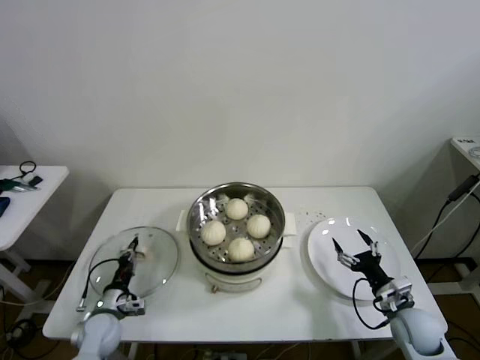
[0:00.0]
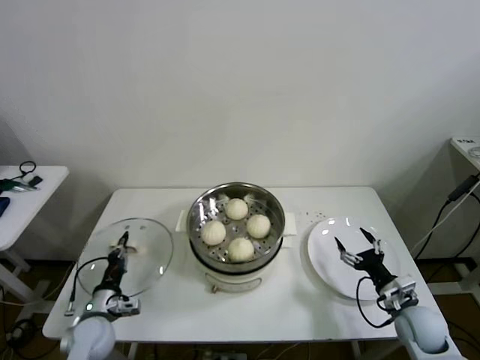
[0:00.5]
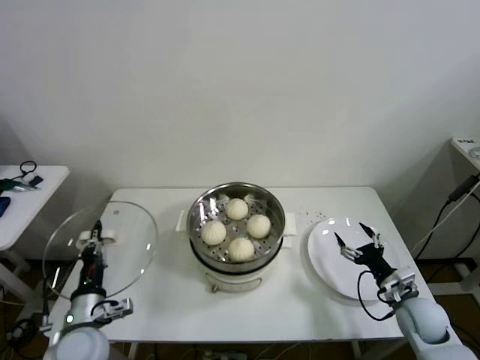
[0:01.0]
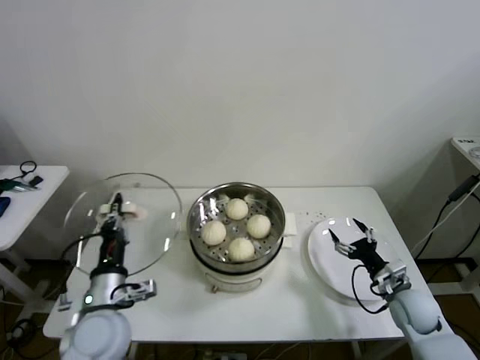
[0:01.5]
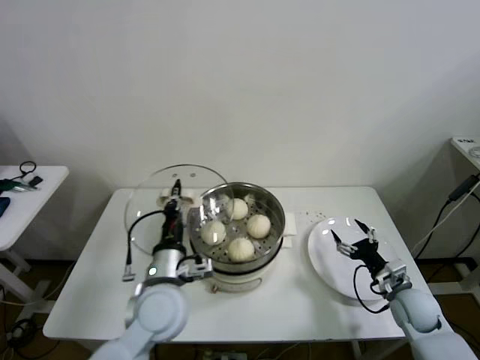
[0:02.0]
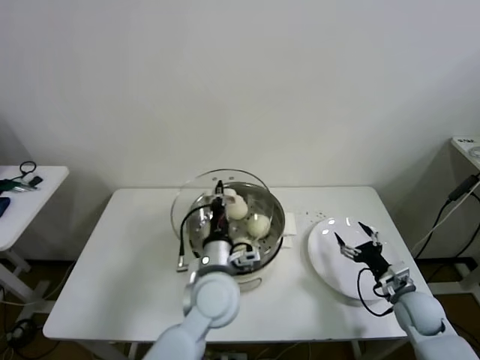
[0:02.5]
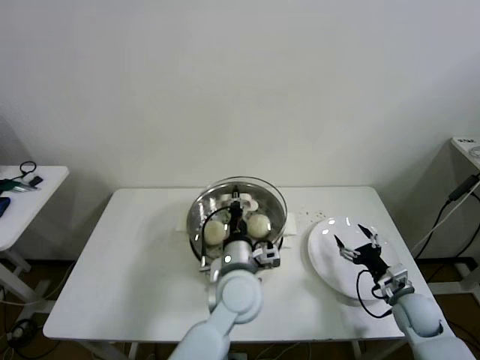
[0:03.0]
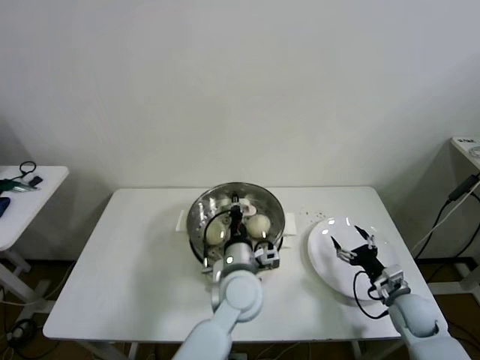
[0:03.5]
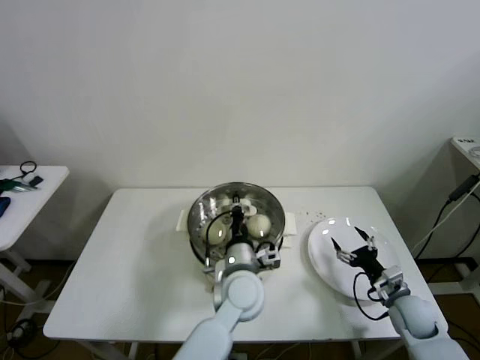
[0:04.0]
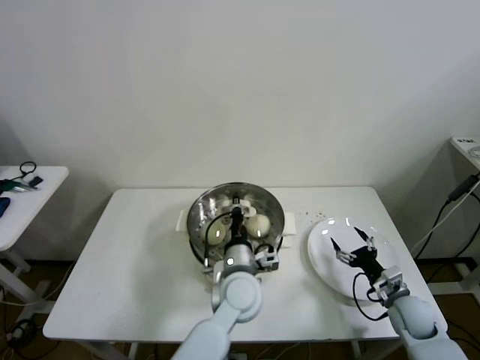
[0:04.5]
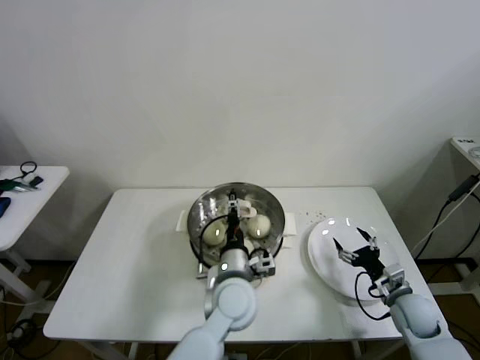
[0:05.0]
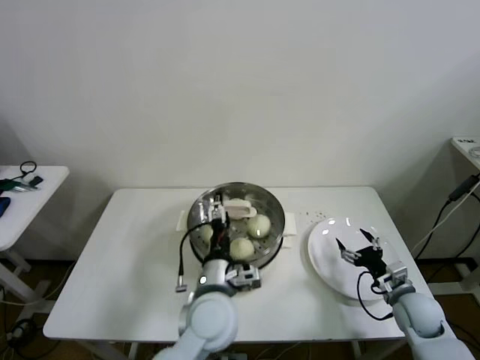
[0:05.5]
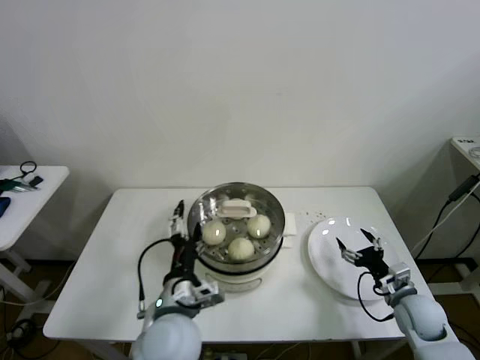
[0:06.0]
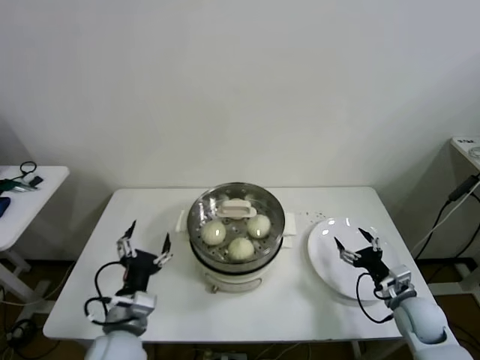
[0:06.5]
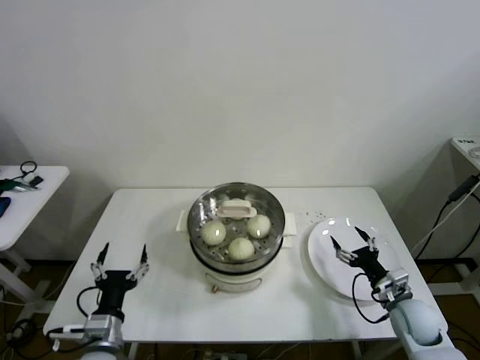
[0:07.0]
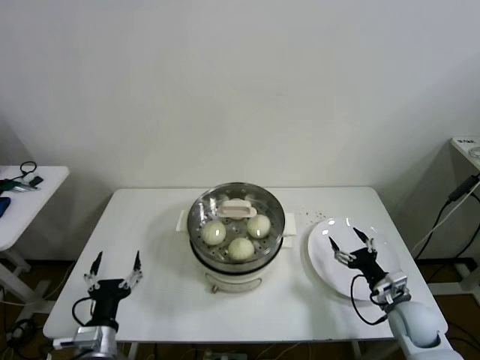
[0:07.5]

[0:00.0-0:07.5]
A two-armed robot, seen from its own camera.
Step, 0:00.5 to 0:04.5: Place the pot lid on the steamer with left gripper.
0:00.0 to 0:02.0: The left gripper is displaced upward and to the right by roughly 30 cm.
0:02.0 to 0:04.0: The left gripper heads to the right, covering about 15 cm.
0:04.0 to 0:05.5: The left gripper moves roughly 5 cm, and opens.
0:05.5 to 0:07.5: The left gripper travels to the left and backward by roughly 25 cm.

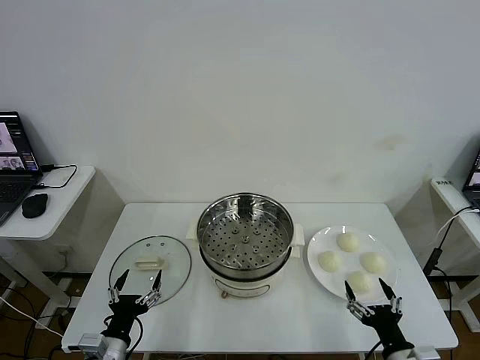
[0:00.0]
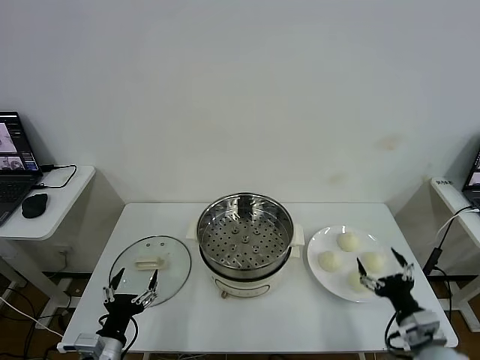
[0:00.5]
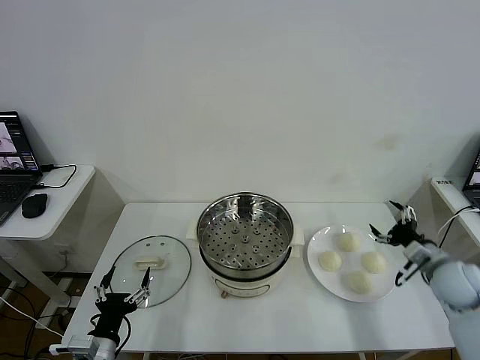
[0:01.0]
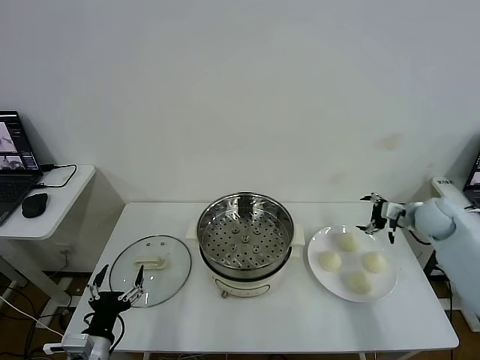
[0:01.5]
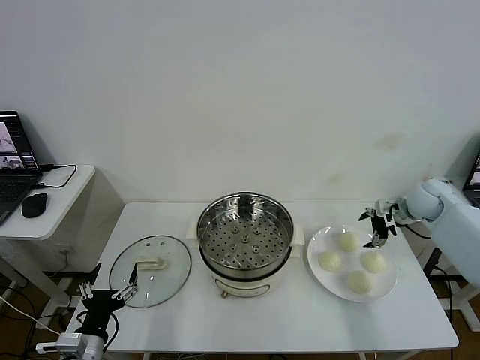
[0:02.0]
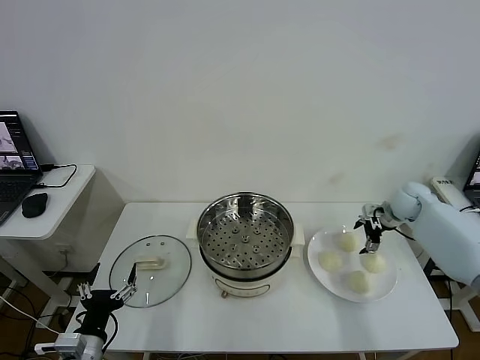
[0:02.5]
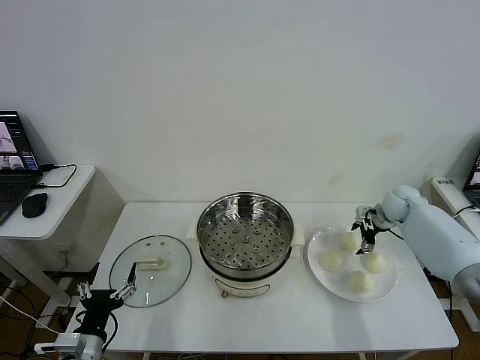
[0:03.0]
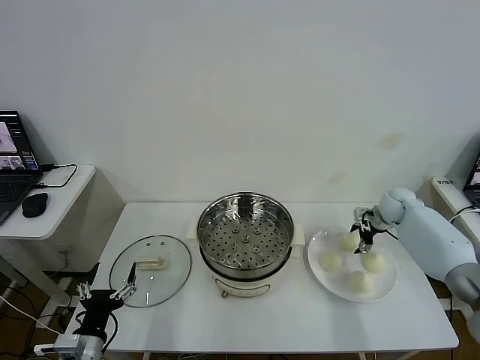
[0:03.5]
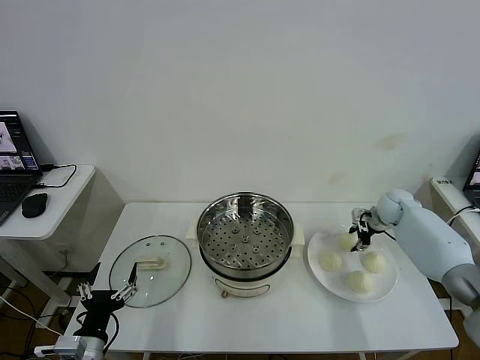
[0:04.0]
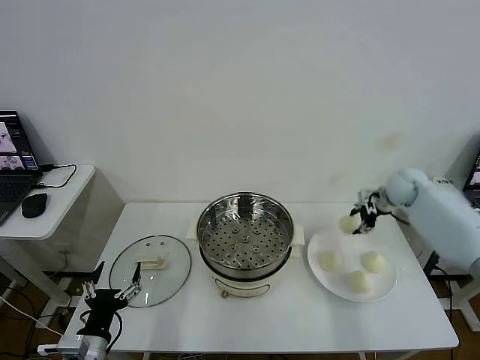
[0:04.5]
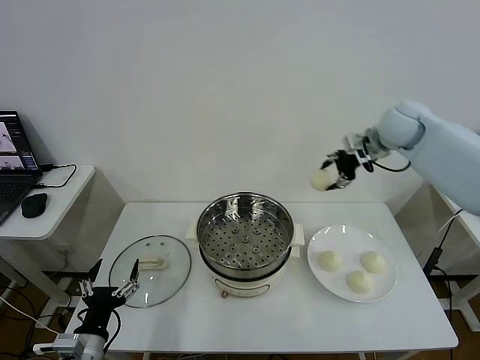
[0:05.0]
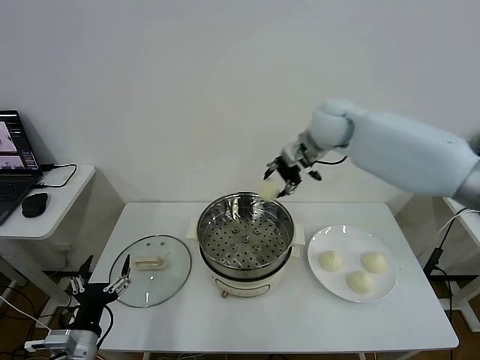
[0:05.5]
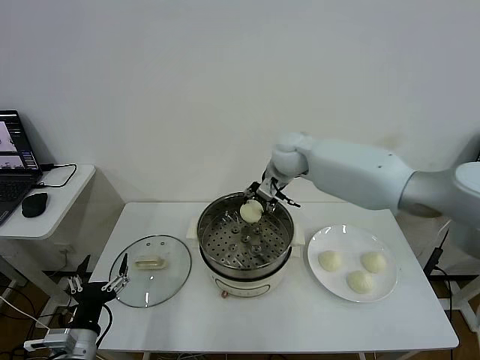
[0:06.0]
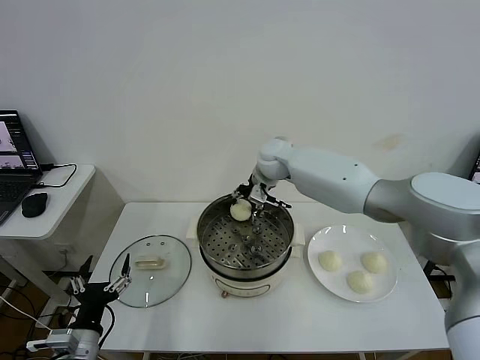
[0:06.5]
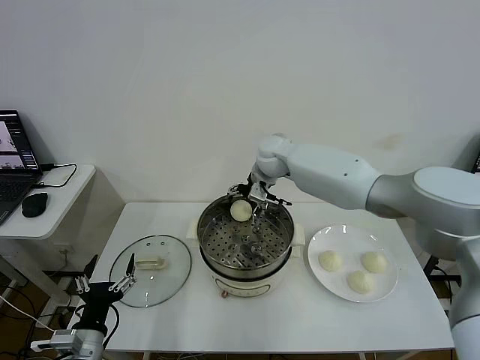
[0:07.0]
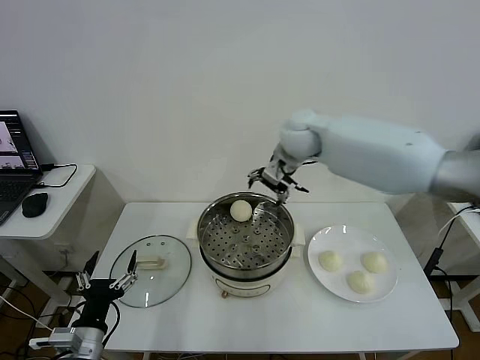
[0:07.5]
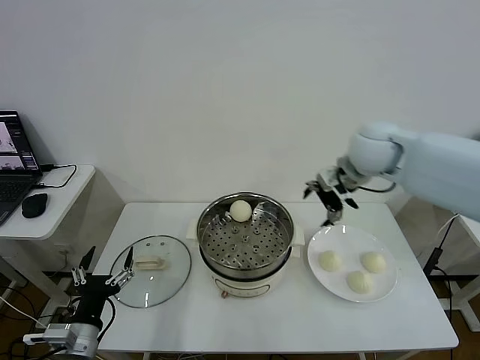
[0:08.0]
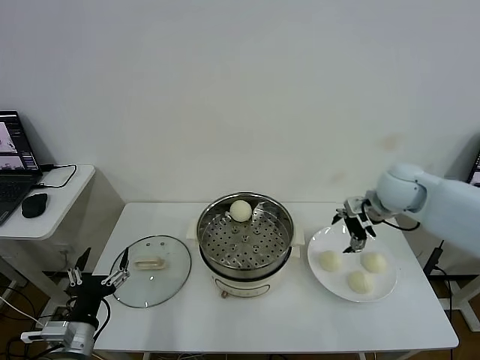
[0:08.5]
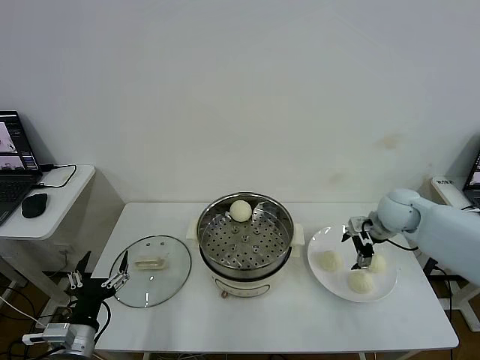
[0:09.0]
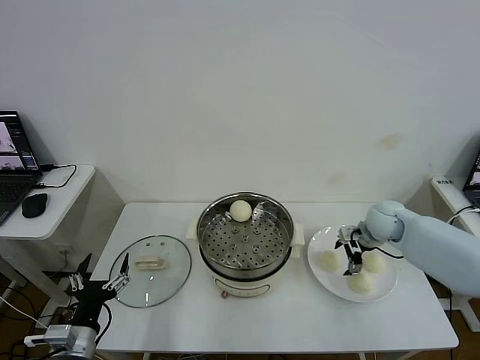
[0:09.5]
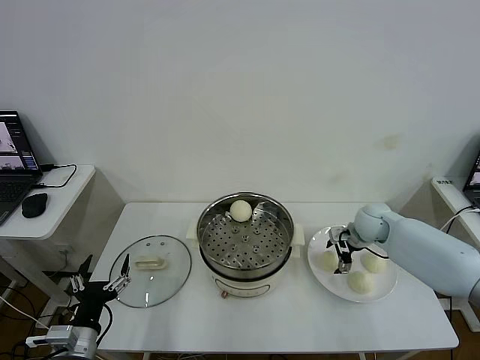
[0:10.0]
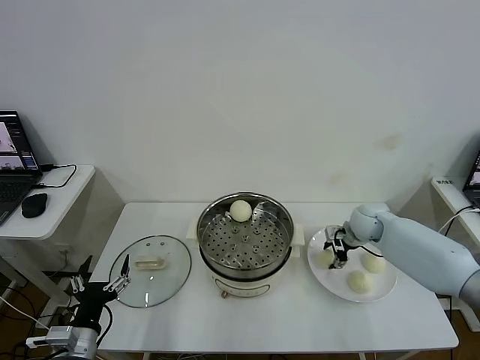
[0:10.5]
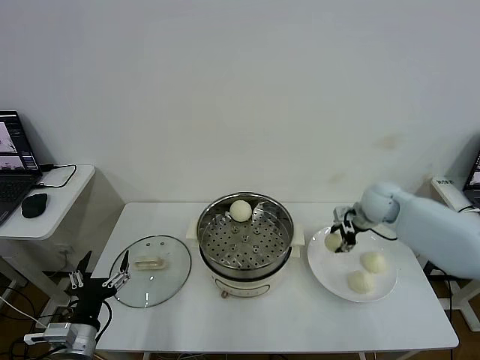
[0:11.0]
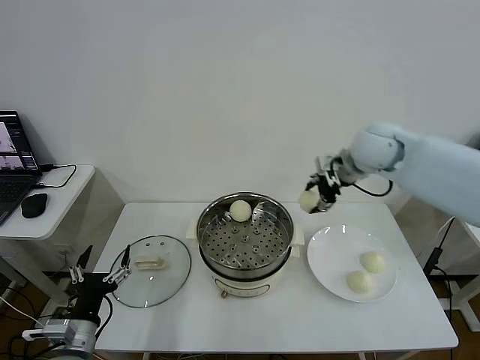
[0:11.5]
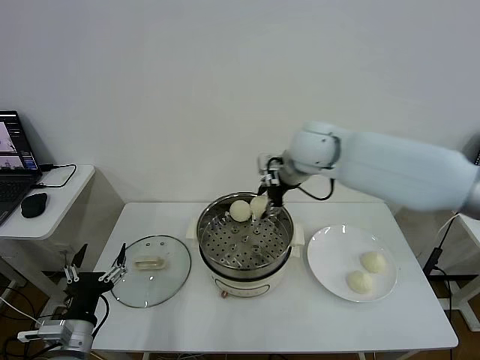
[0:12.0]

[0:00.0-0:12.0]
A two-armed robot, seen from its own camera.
Step, 0:00.0 to 0:04.0: Grasp the baozi in the plate with right gripper.
Step, 0:04.5 to 0:07.0: Place the baozi on the steamer with right gripper.
Step, 0:07.5 to 0:10.5: Grasp the baozi in the plate with right gripper.
0:02.0 to 0:04.0: The right gripper goes roughly 5 cm downward, and closes.
0:04.0 to 0:06.0: The right gripper moves to the left and upward, roughly 35 cm.
0:06.0 to 0:08.0: The right gripper is displaced to the right, backward and upward by about 20 cm, and opens.
0:08.0 to 0:10.0: The right gripper travels downward by some 20 cm.
0:10.0 to 0:12.0: The right gripper is displaced upward and to the left by some 30 cm, and closes its fingers.

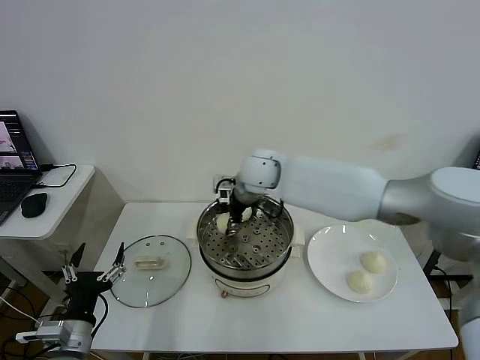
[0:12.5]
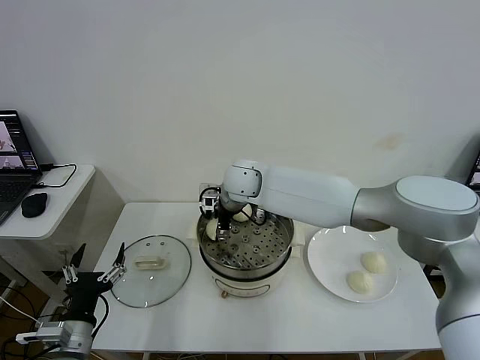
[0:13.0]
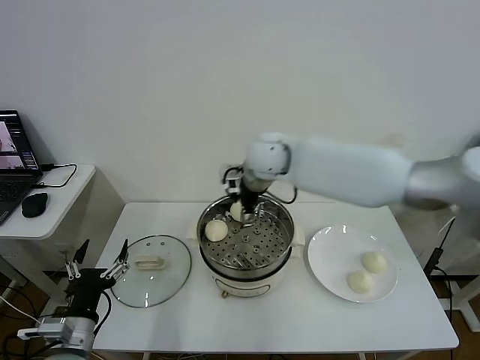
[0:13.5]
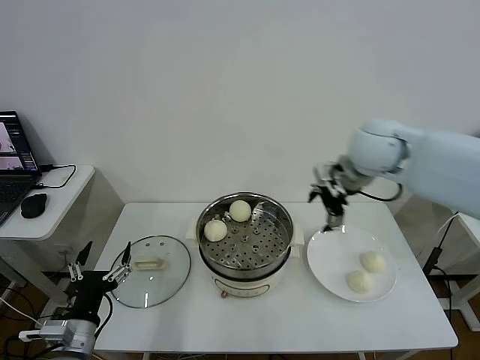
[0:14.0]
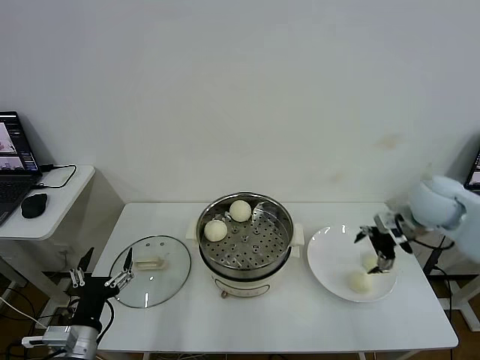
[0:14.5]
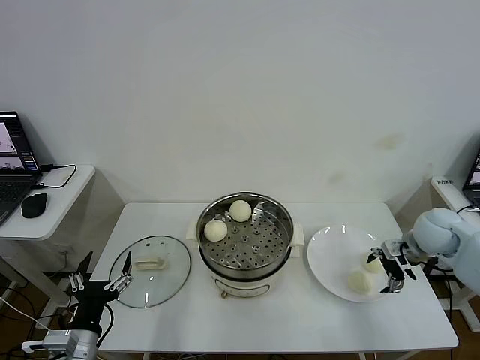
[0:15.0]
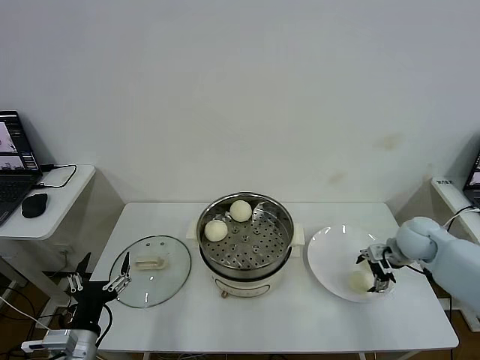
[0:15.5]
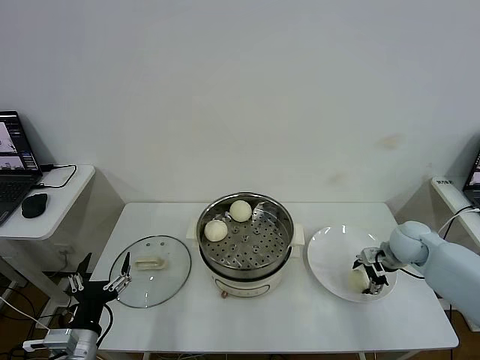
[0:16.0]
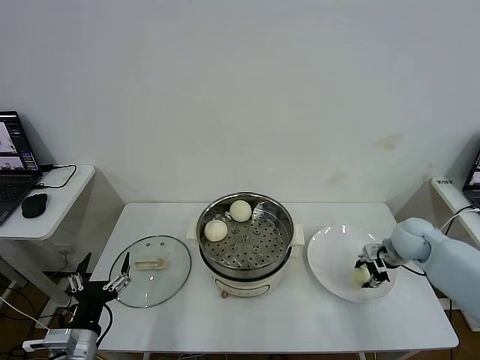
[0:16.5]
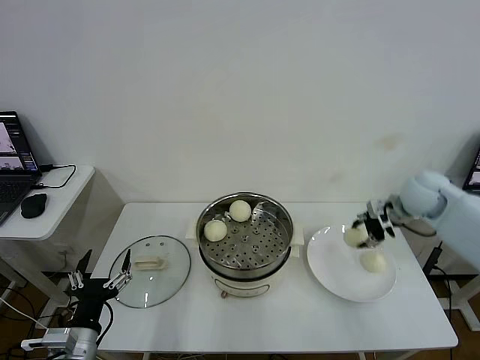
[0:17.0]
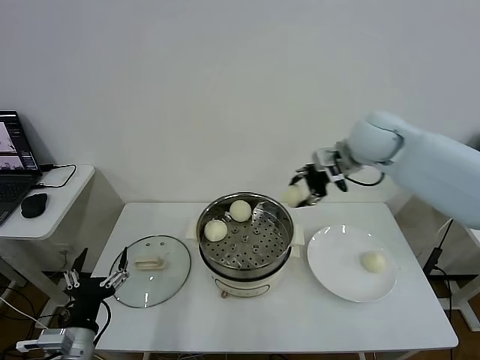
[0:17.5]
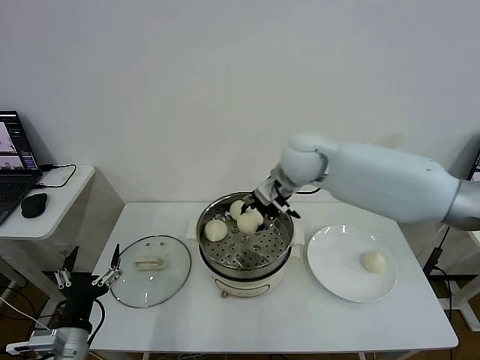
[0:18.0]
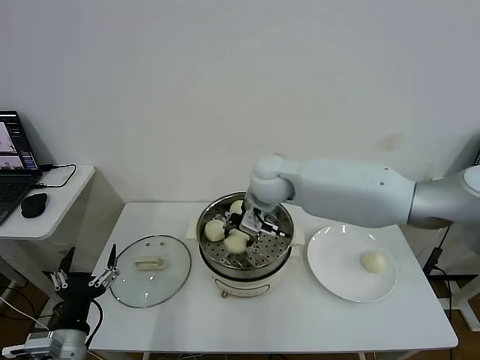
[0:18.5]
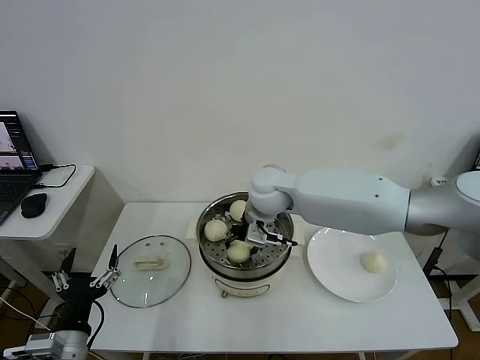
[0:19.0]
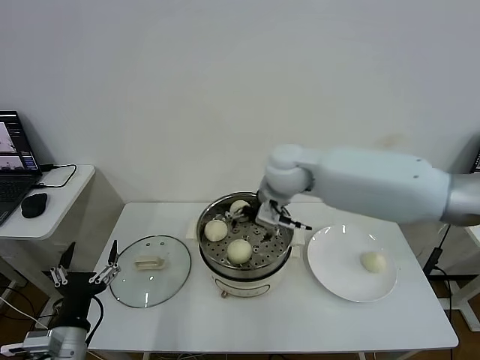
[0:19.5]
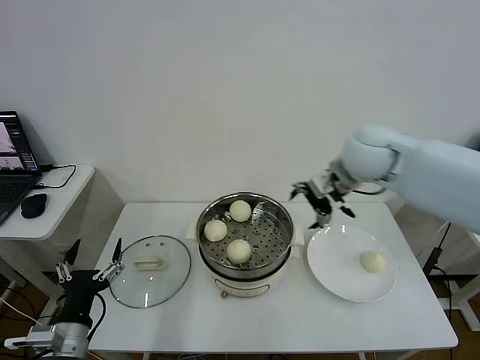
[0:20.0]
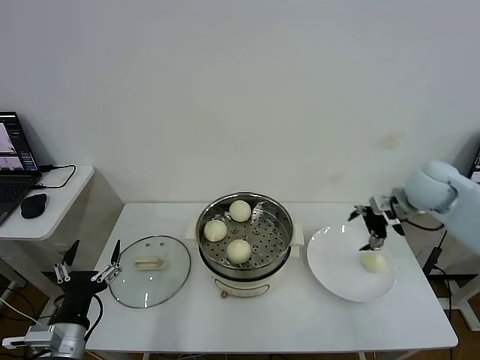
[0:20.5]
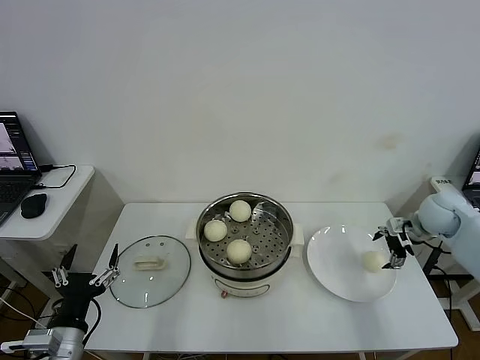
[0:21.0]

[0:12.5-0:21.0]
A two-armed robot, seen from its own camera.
Step, 0:13.5 to 0:16.0: Grasp the baozi in the plate with right gripper.
Step, 0:16.5 to 0:19.0: Place the baozi on the steamer with right gripper.
0:12.5 to 0:14.5: The right gripper goes some 35 cm to the right, and opens its fingers.
0:14.5 to 0:16.5: The right gripper moves downward, some 10 cm, and closes.
0:16.5 to 0:19.0: The right gripper heads to the left, covering approximately 35 cm.
0:19.0 to 0:21.0: The right gripper shifts about 40 cm to the right, and opens its fingers.
